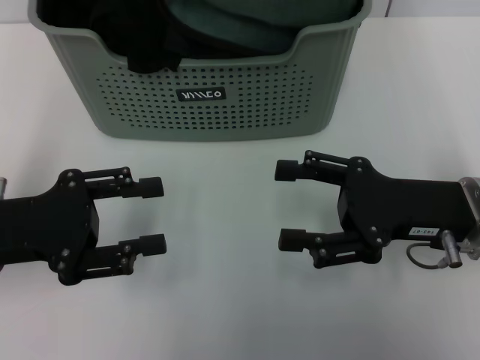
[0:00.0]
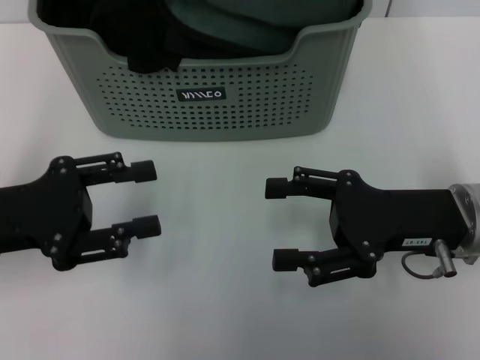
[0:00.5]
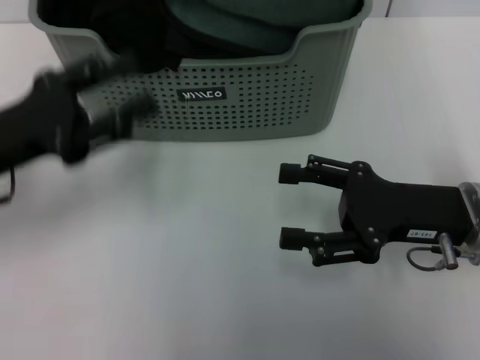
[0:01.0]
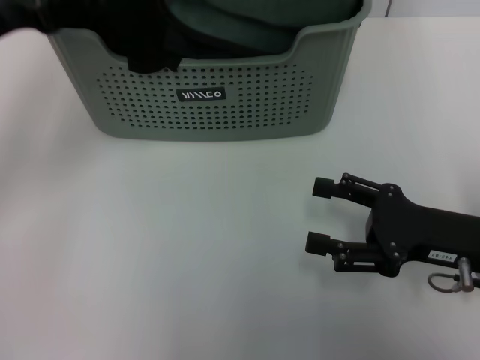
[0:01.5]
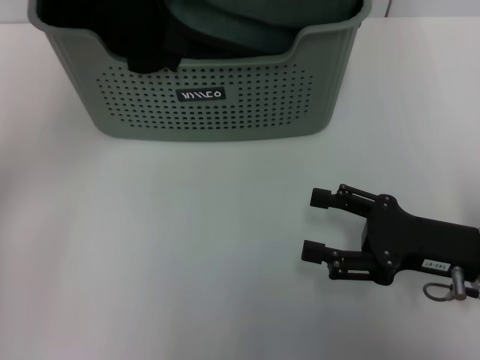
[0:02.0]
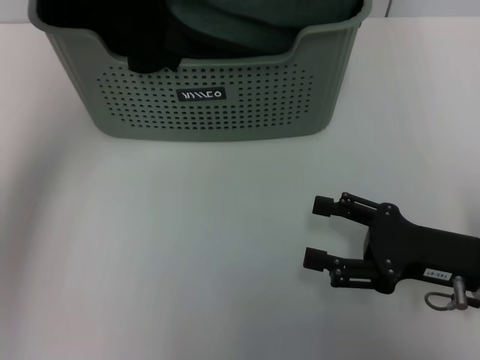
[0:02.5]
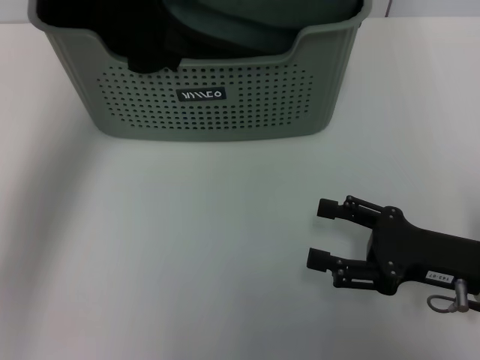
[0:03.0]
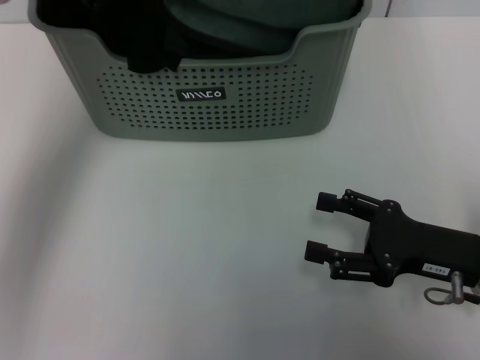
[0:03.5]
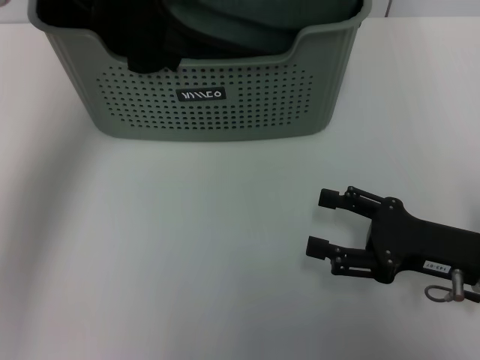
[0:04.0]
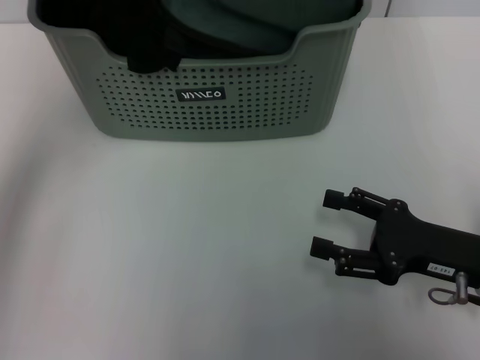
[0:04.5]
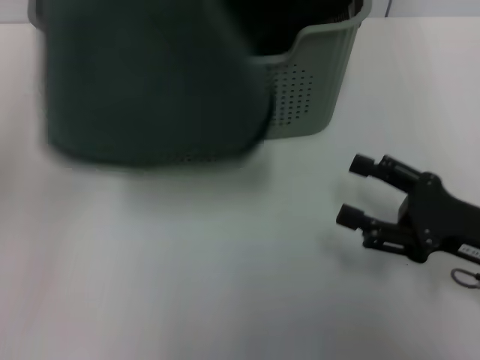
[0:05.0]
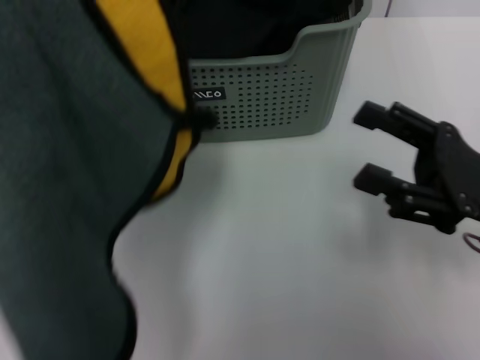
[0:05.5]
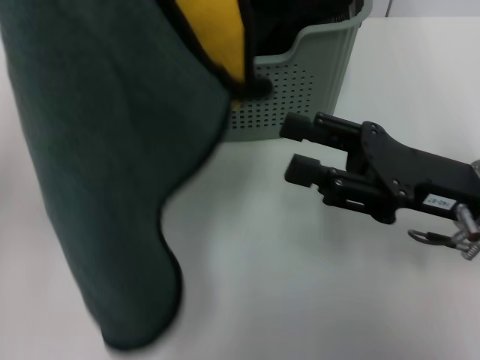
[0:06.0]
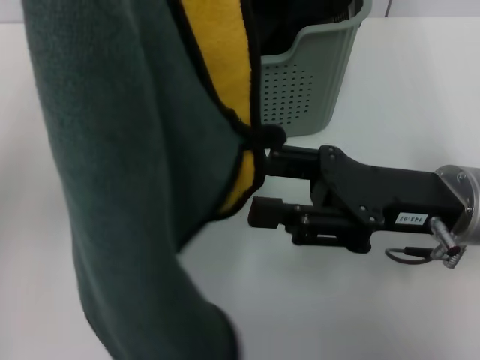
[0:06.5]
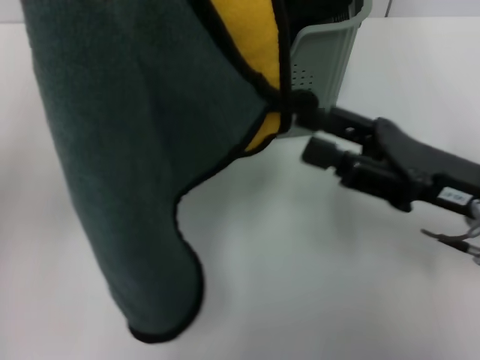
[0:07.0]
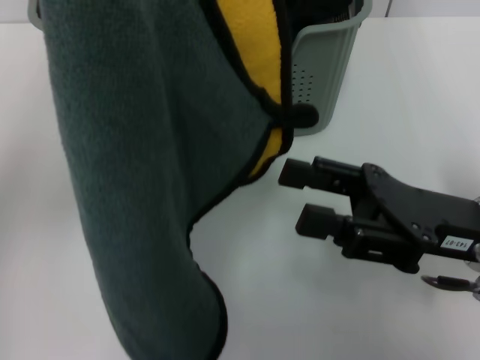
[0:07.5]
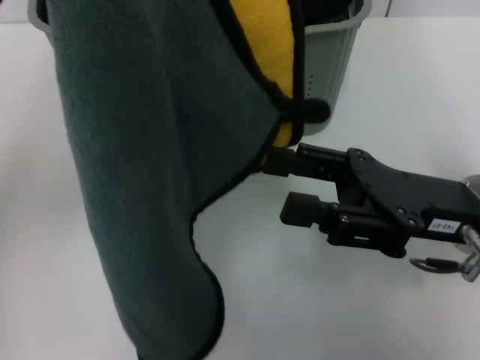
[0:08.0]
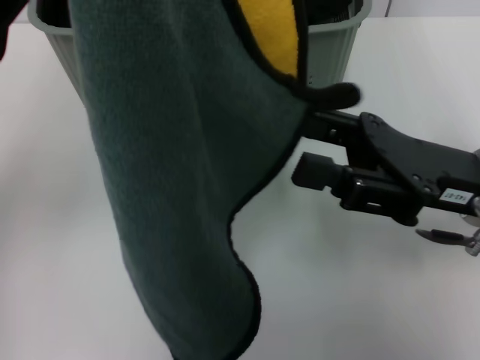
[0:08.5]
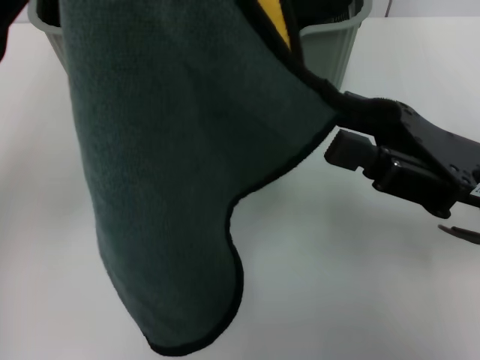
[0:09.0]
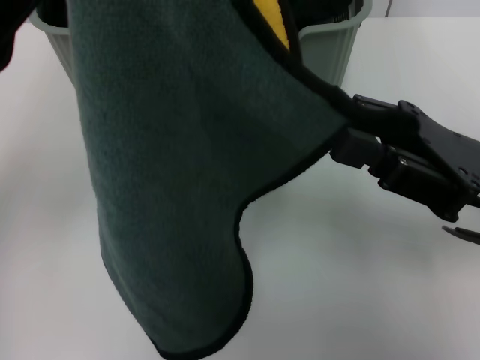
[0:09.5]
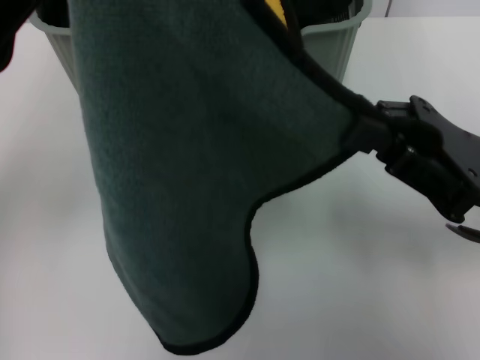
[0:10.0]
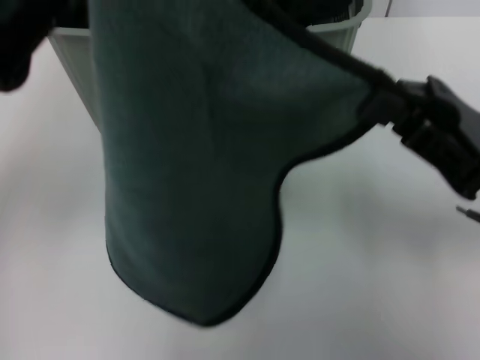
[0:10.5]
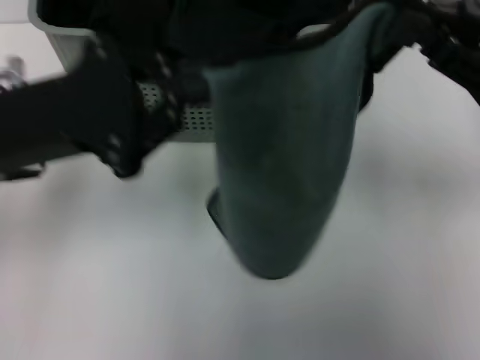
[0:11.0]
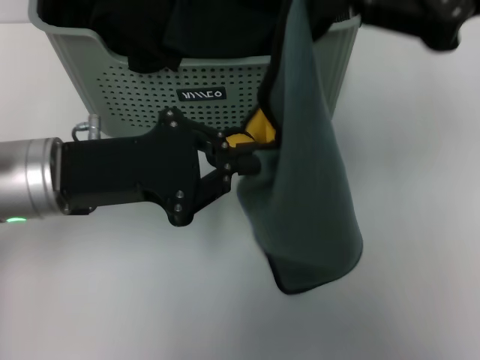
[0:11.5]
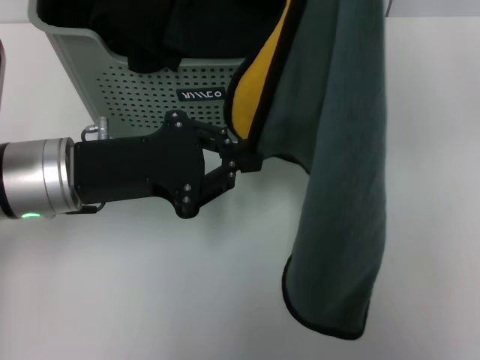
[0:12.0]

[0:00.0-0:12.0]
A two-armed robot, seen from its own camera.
Task of the whole recording: pick up the towel from the storage box and lay it flat on the table.
Step, 0:00.0 to 0:04.0: Pick up a towel with the left gripper.
Step, 0:04.5 to 0:10.0: Spread the towel flat with the left gripper.
0:00.0 to 0:02.0: The left gripper is displaced upward and forward by approximately 15 cm. Meanwhile the right gripper ends up roughly 5 cm from where it was.
0:02.0 to 0:04.0: The left gripper moves roughly 5 cm.
0:04.0 to 0:06.0: The right gripper travels upward by roughly 5 cm. Meanwhile the left gripper heads backward and to the left, covering approximately 10 cm, and closes its fingers.
0:08.0 to 0:10.0: The right gripper closes its fingers.
0:10.0 to 0:12.0: The left gripper is displaced downward by roughly 15 cm, while the right gripper is displaced upward by roughly 20 cm.

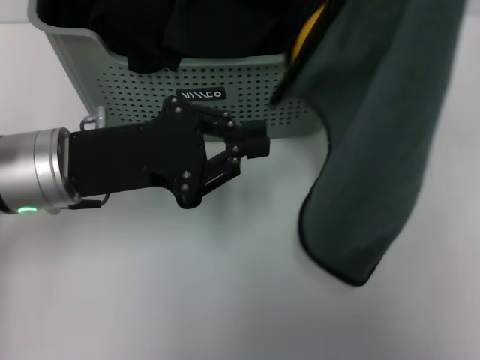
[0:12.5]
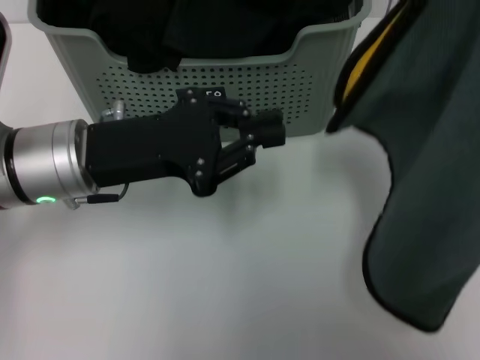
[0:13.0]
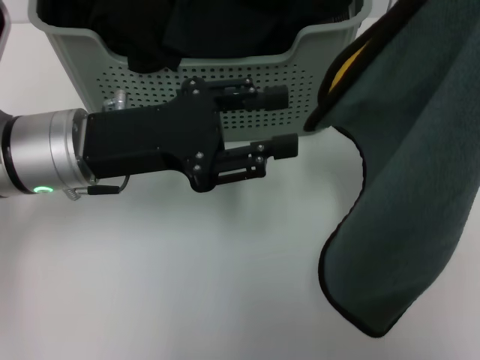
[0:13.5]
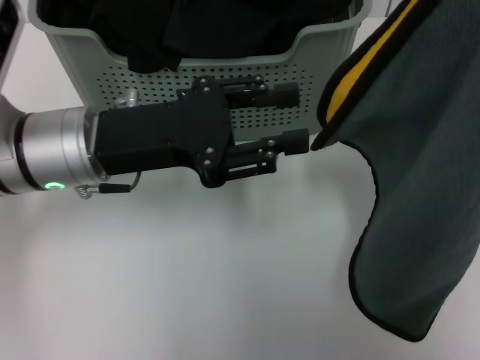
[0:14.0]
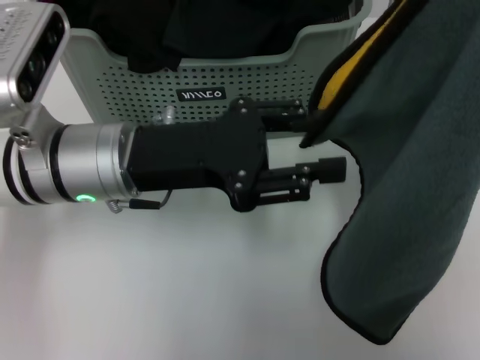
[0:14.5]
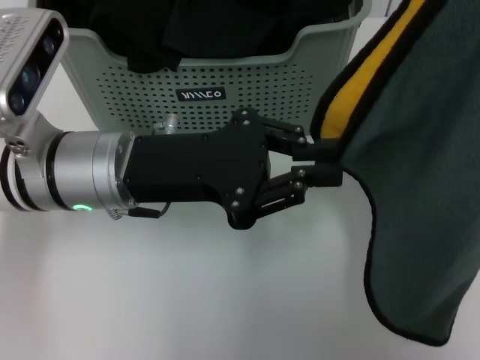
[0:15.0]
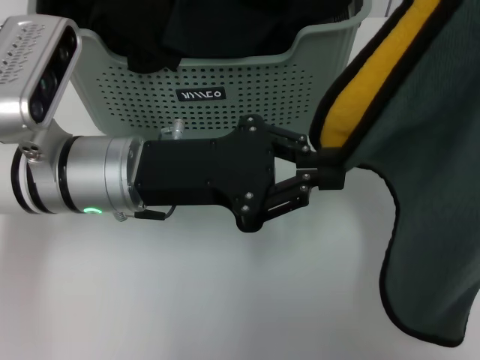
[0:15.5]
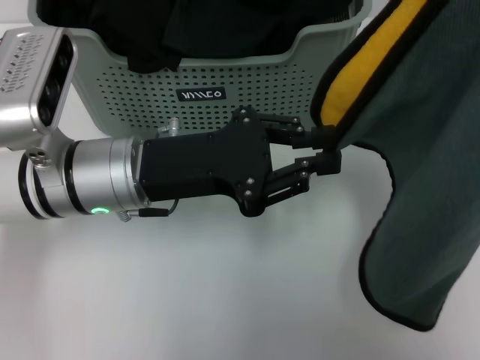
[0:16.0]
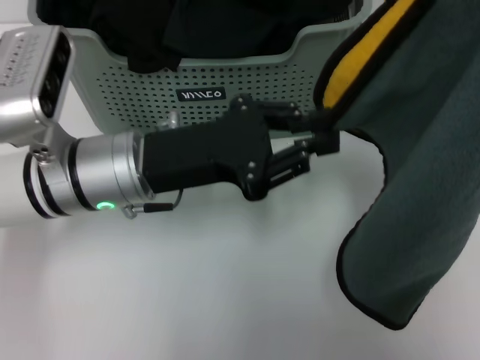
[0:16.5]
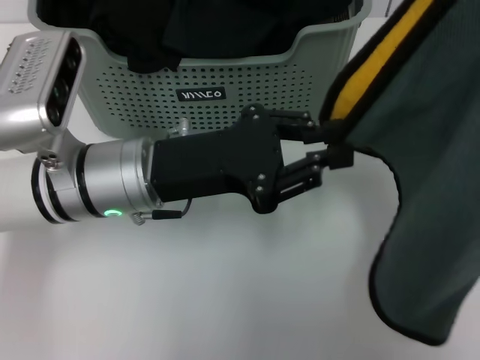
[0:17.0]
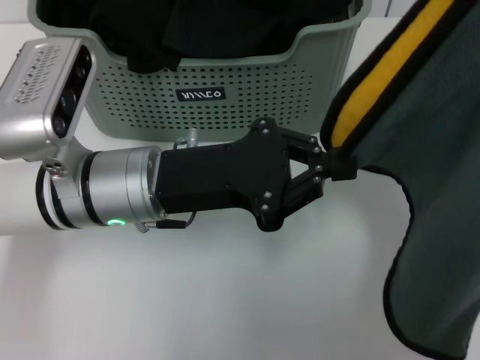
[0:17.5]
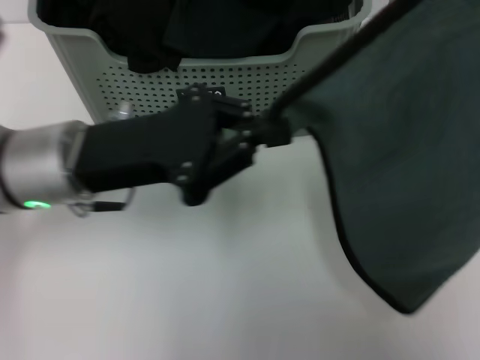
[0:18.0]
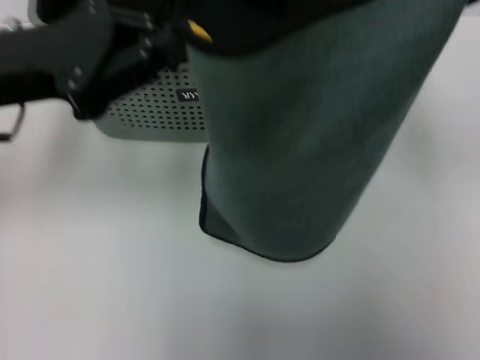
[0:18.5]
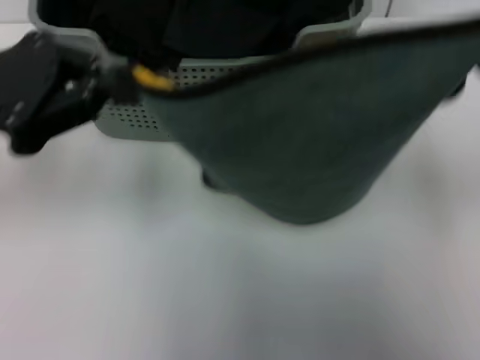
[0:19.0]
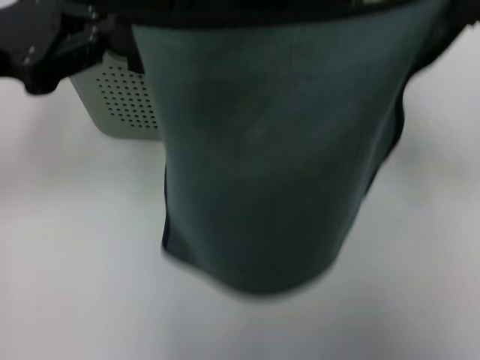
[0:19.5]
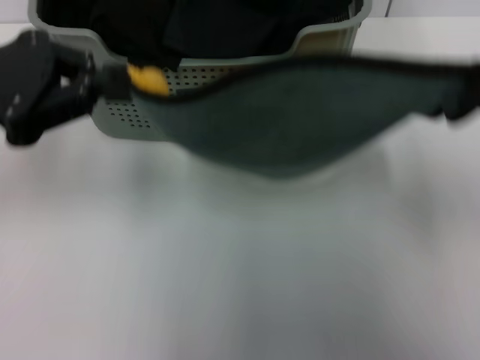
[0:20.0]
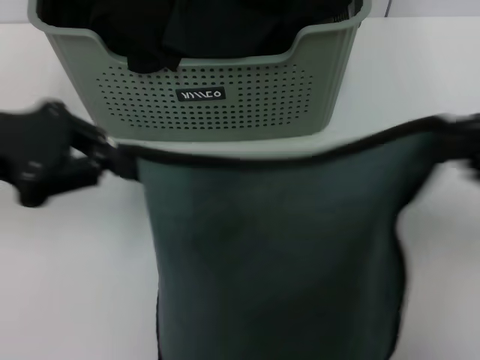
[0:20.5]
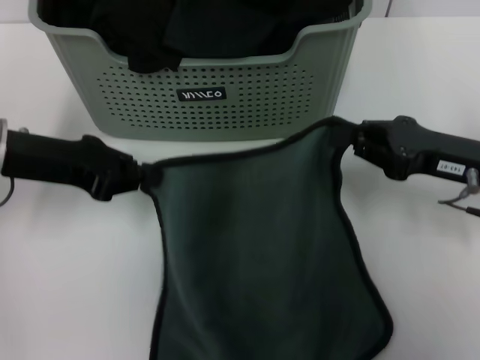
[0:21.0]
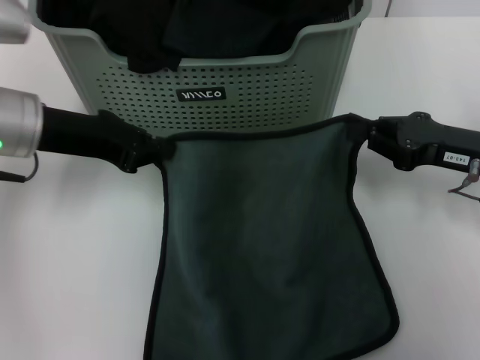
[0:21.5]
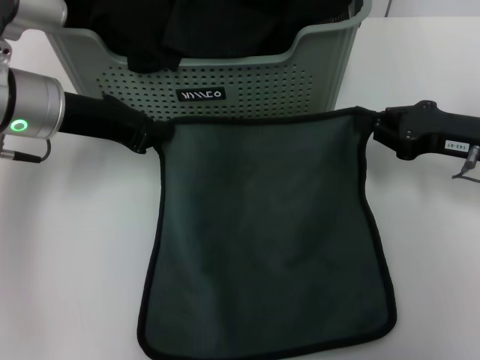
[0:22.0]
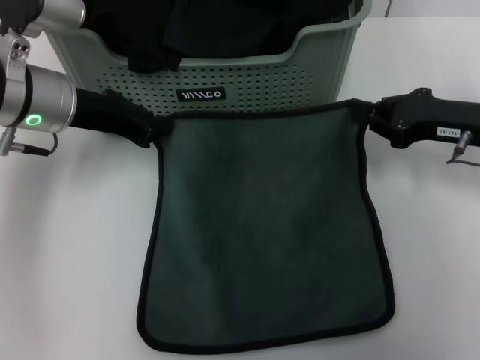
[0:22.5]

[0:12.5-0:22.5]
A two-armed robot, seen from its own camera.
Task of the whole recording: pick up the towel from the storage box and lay it flat on the table.
0:12.5 to 0:14.5: The left gripper opens up.
0:14.5 to 0:16.5: The left gripper closes its fingers.
0:16.5 to 0:18.5: The right gripper moves downward, approximately 10 cm. Meanwhile the left gripper travels upward and to the left by roughly 15 cm, and closes its fingers.
0:18.5 to 0:20.5: The right gripper heads downward and backward, covering roughly 10 cm.
0:20.5 to 0:22.5: The right gripper travels forward by approximately 10 cm. Meanwhile the left gripper travels forward, to the right and downward by some 10 cm.

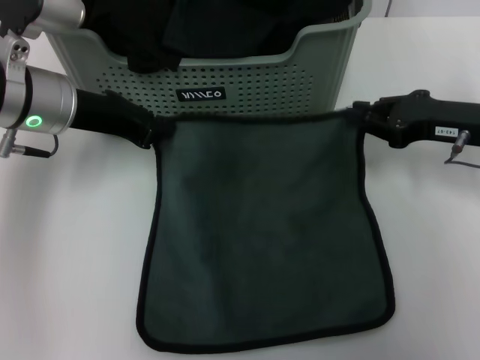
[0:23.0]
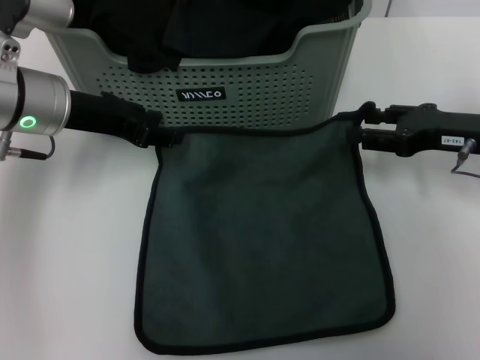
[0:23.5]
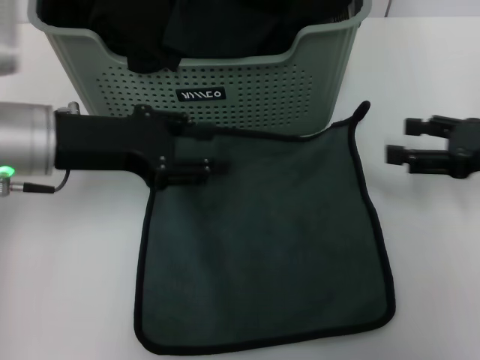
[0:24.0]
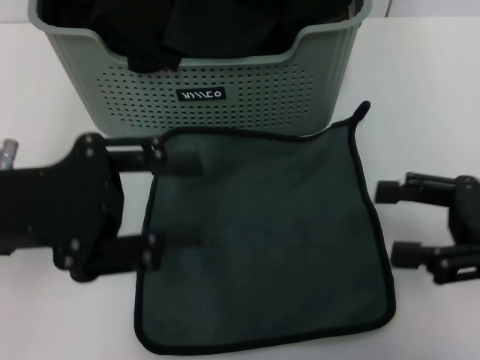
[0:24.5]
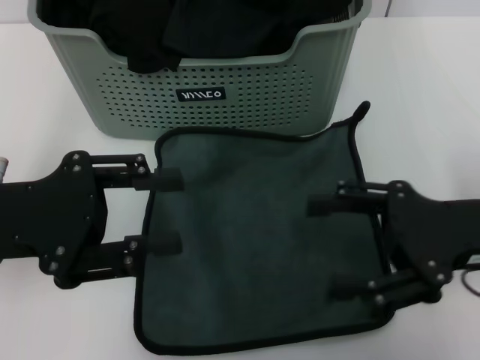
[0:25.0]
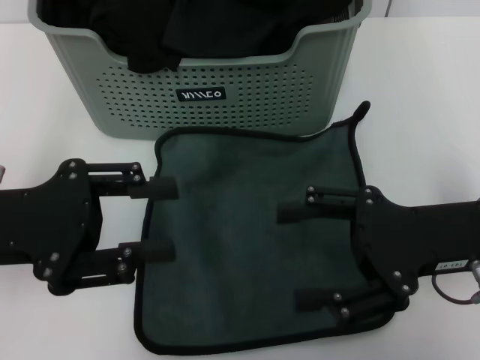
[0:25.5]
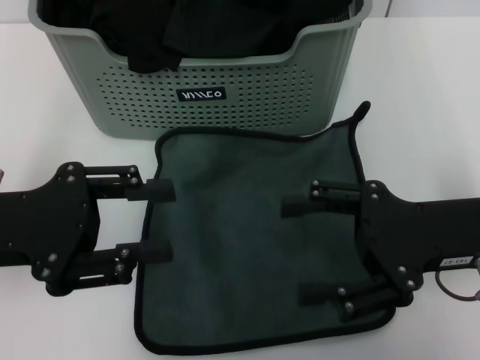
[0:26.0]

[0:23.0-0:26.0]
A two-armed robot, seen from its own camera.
Task of the whole recording: pick up the towel from the storage box and lay it flat on the table.
0:23.0 to 0:24.5: The grippers both shift backward by approximately 10 cm. The right gripper opens up; the left gripper opens up.
0:24.5 to 0:26.0: The right gripper is displaced to the left by about 10 cm.
